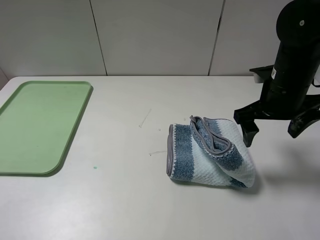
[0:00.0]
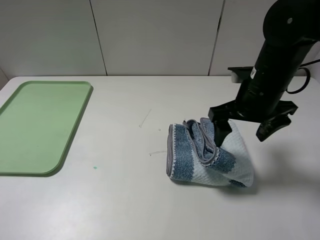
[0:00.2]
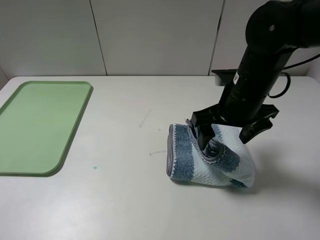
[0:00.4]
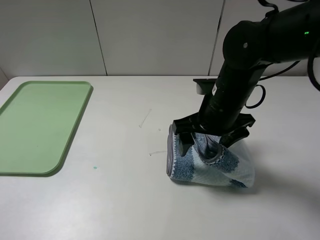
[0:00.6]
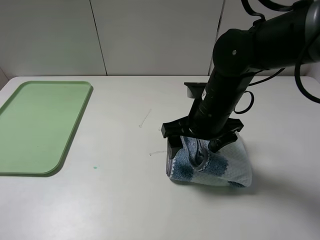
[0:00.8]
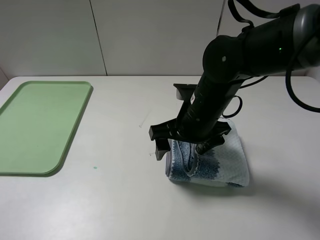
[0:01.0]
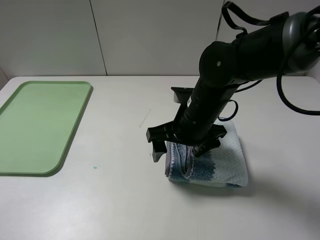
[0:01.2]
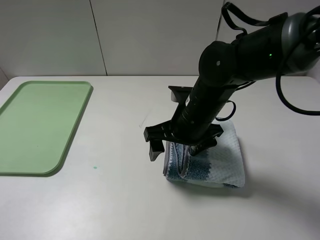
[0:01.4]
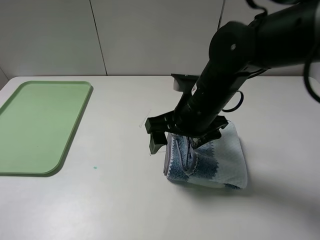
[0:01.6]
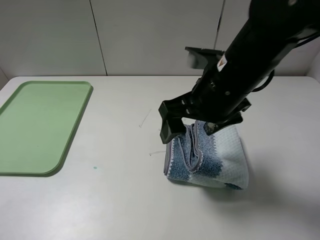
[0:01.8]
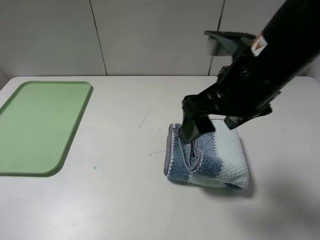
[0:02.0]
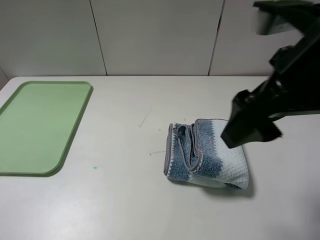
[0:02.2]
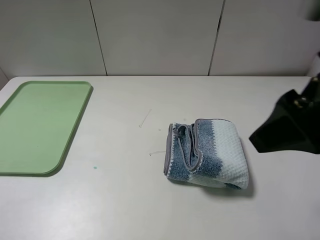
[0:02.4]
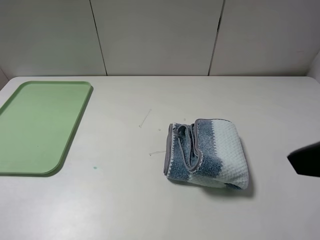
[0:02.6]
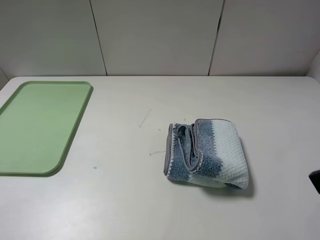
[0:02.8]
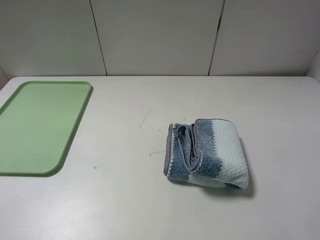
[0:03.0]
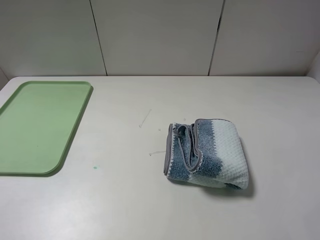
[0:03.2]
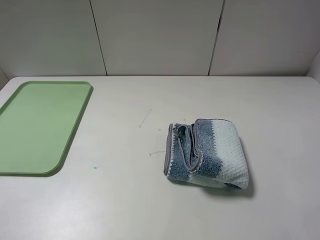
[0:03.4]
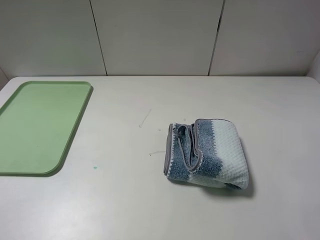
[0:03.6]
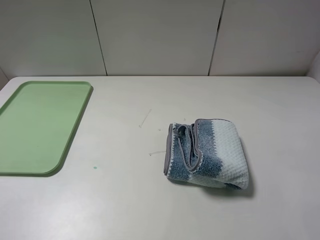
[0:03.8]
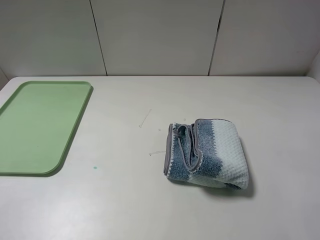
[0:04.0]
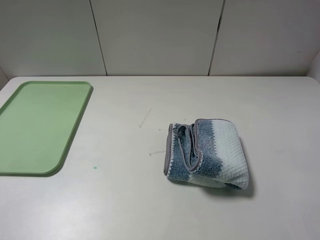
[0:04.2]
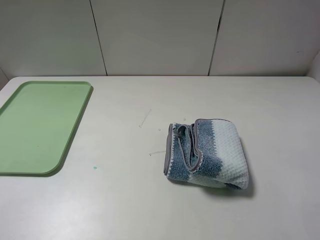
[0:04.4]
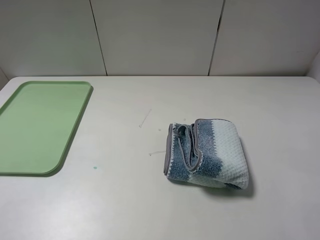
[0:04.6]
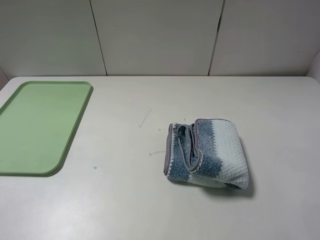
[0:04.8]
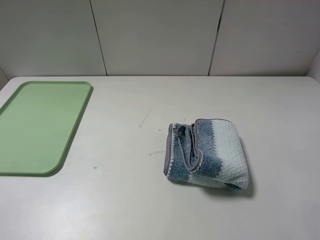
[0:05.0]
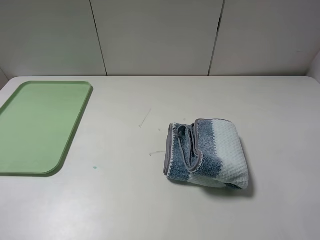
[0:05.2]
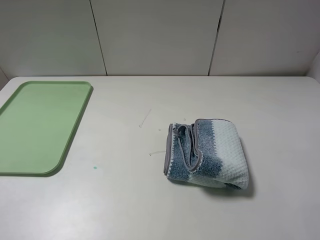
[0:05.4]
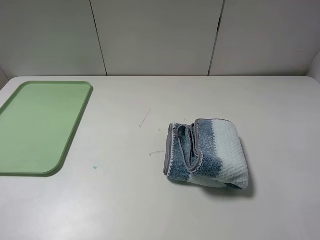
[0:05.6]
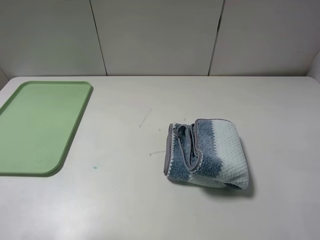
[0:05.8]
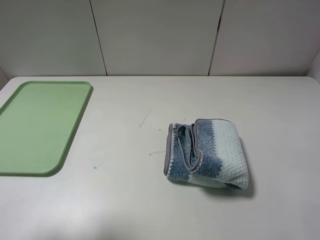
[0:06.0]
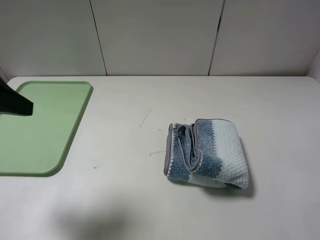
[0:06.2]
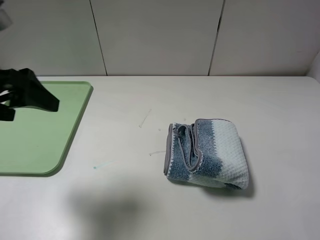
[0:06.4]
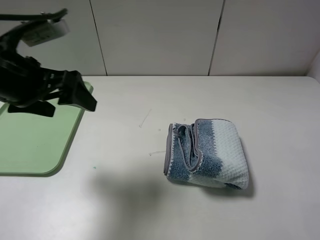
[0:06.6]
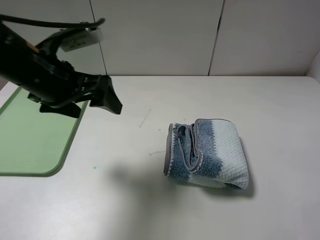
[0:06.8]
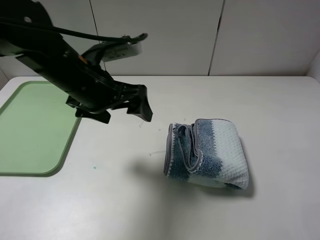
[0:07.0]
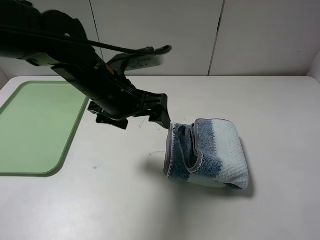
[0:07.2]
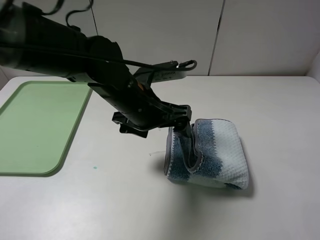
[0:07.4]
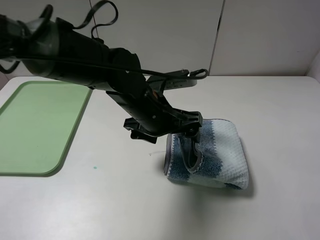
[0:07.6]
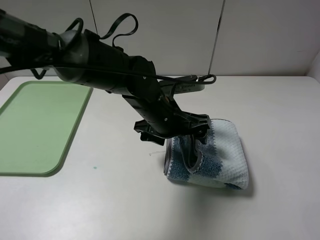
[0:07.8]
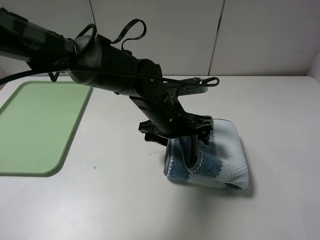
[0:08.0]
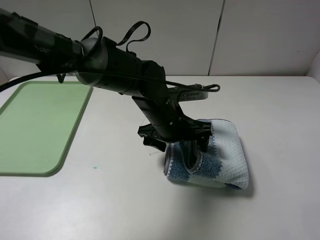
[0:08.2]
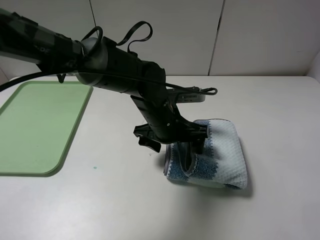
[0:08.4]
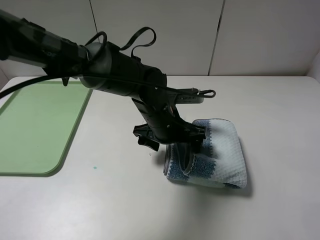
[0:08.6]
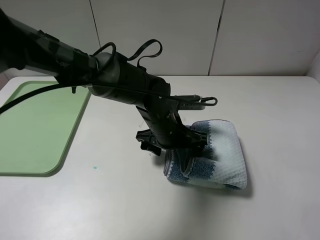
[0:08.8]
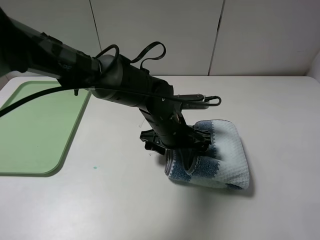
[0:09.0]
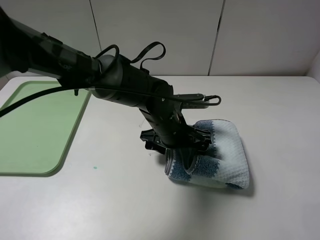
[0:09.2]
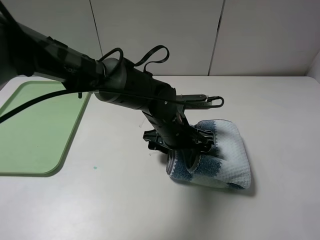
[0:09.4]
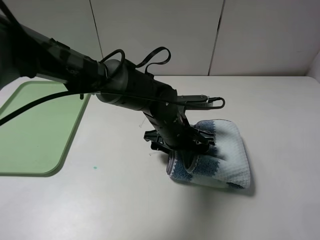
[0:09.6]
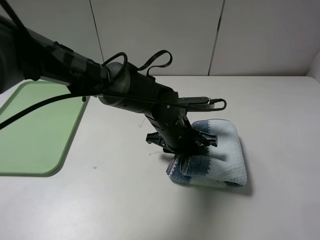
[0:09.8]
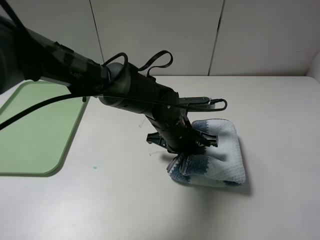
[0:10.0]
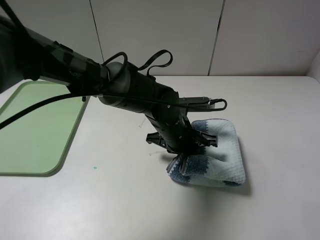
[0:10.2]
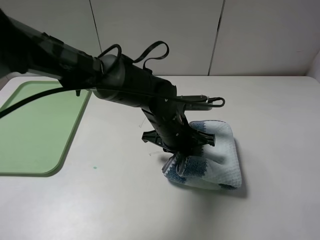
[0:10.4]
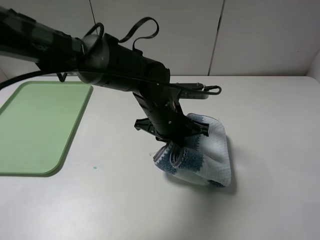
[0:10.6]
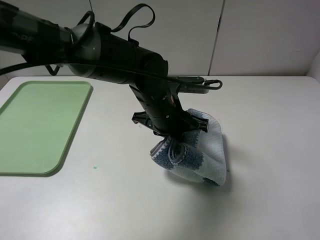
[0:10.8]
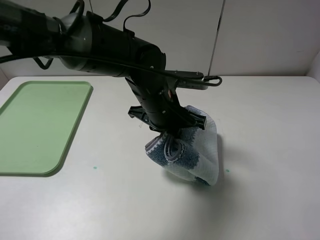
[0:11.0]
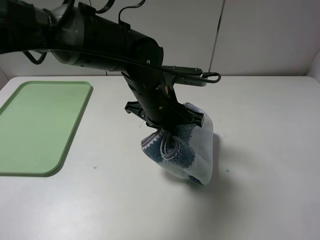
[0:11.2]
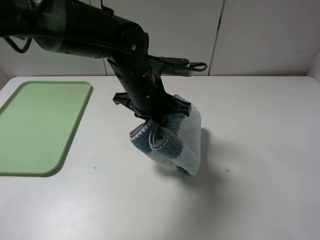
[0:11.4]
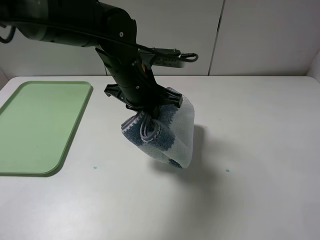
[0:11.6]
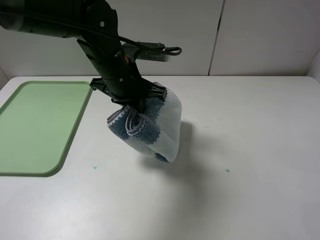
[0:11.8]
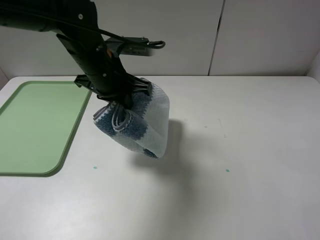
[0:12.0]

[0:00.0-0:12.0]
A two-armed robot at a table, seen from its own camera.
Step, 0:00.0 to 0:02.0: Fold the blue white towel from right to left with right gripper.
Step, 0:02.2 to 0:10.0: Grasp the blue white towel with the left gripper.
0:00.0 to 0:01.6: The right gripper goes approximately 15 cm to the left.
0:01.6 to 0:03.0: The right gripper travels to the right, backward and upward by approximately 30 cm.
0:04.4 to 0:06.0: The left gripper is displaced forward by about 10 cm.
0:06.0 to 0:07.6: The left gripper travels to the right, forward and downward by about 35 cm.
0:07.6 to 0:09.0: The left gripper moves downward, about 5 cm.
0:09.0 to 0:10.4: The left gripper closes up.
0:10.4 to 0:12.0: The left gripper is displaced to the left and upward by some 15 cm.

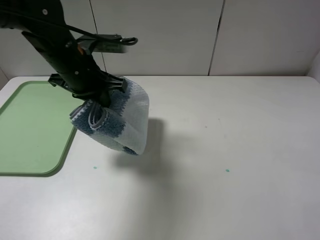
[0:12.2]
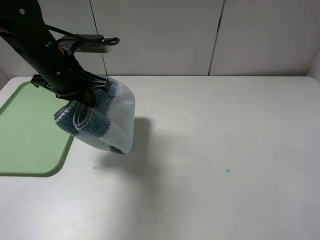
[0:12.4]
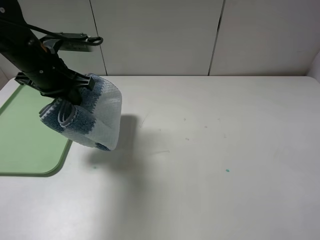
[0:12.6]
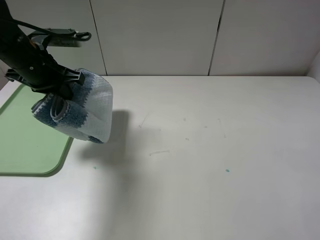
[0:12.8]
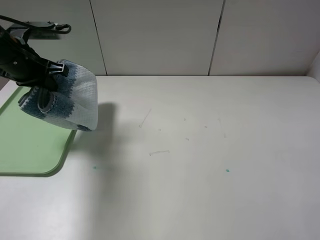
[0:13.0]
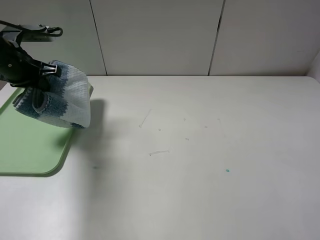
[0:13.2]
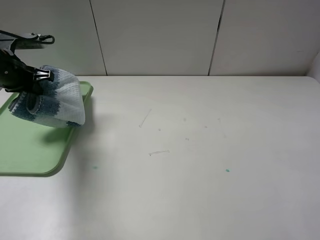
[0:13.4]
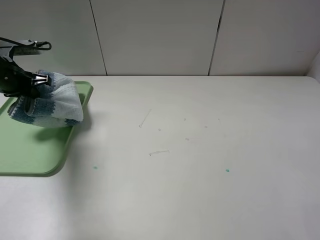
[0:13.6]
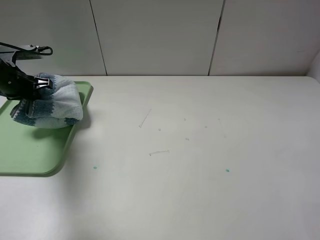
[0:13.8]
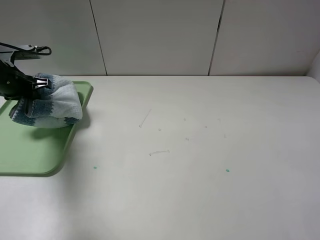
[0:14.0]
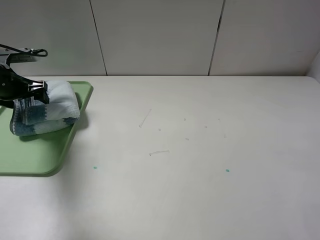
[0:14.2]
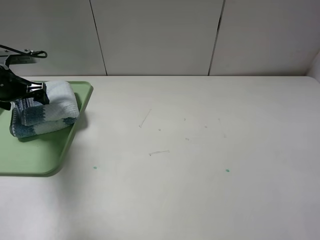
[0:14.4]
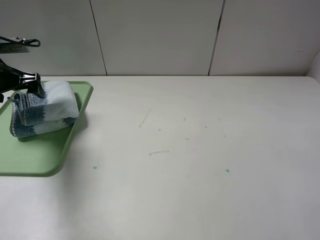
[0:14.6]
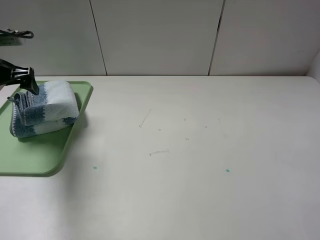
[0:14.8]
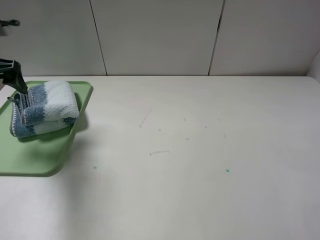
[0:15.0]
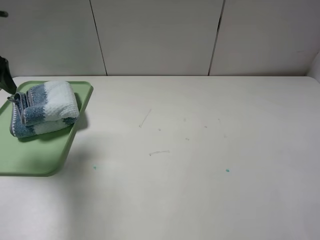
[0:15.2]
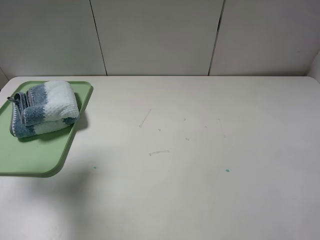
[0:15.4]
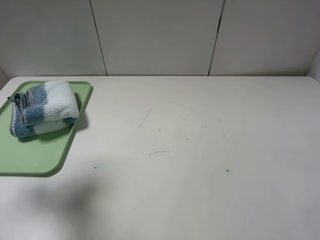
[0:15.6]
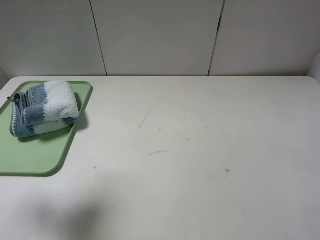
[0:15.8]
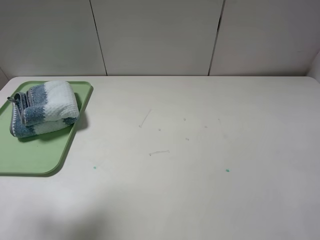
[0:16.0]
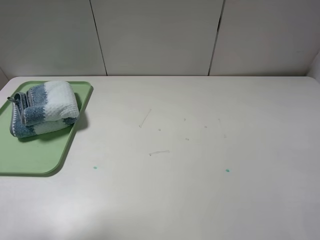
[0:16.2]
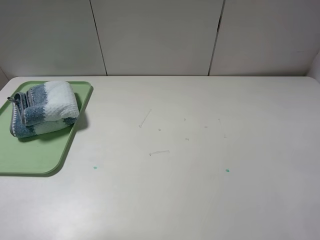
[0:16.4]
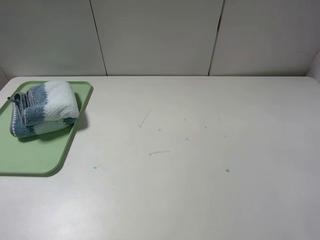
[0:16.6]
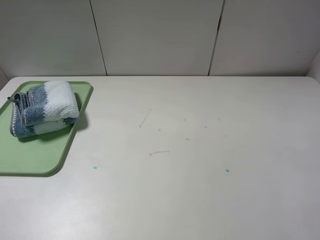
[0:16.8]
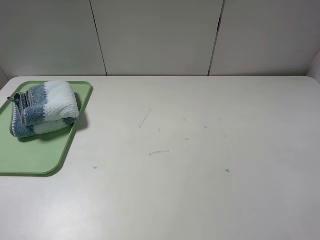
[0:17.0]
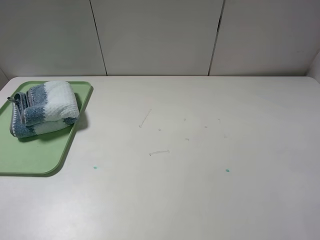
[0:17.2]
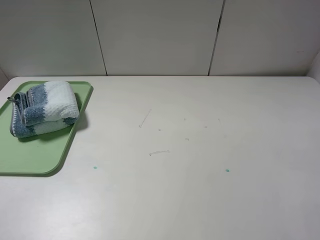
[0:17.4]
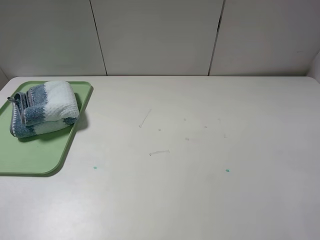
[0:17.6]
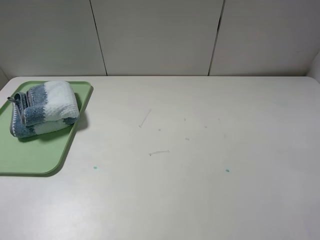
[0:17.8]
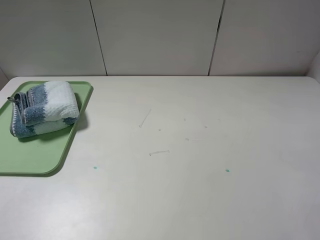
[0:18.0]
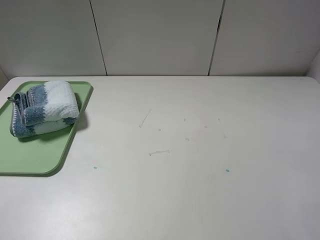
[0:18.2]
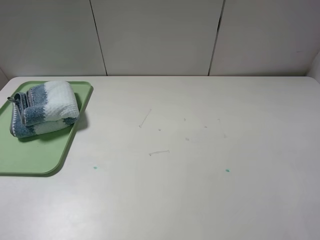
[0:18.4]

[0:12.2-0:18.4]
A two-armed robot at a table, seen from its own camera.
0:12.2 to 0:13.8: The left gripper goes some 20 cm to the left.
0:13.8 to 0:15.4: The left gripper goes roughly 20 cm upward and backward, and opens up.
0:15.4 to 0:16.8: The left gripper goes some 25 cm backward.
